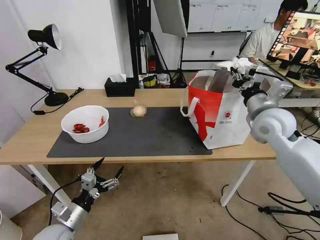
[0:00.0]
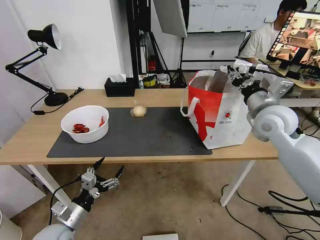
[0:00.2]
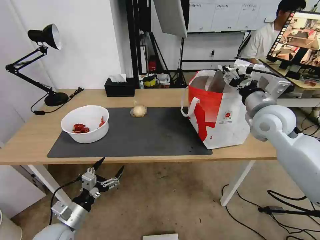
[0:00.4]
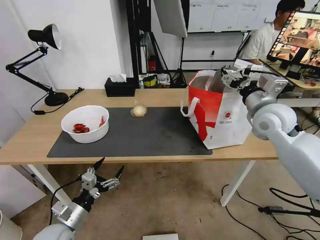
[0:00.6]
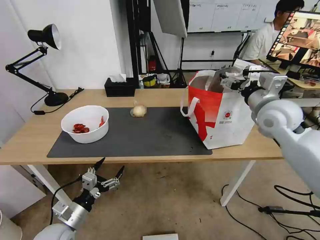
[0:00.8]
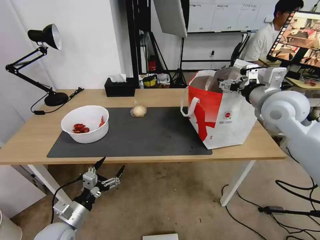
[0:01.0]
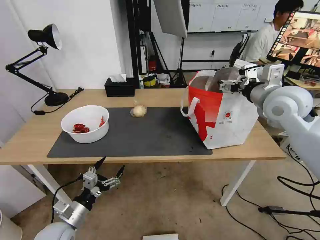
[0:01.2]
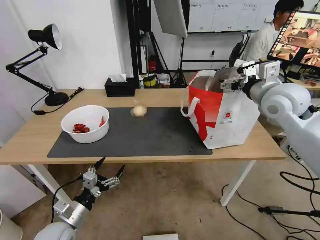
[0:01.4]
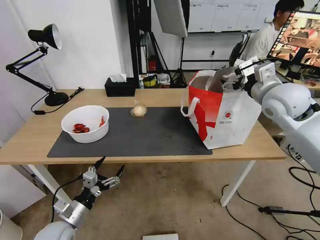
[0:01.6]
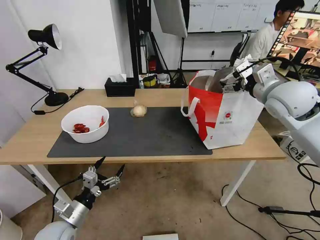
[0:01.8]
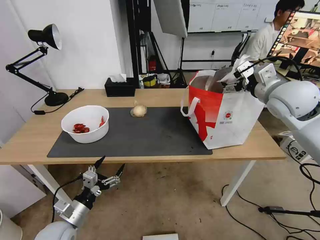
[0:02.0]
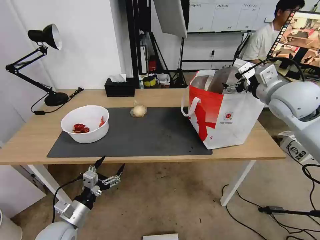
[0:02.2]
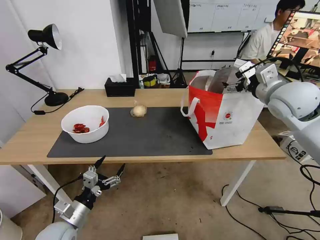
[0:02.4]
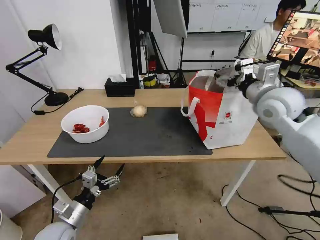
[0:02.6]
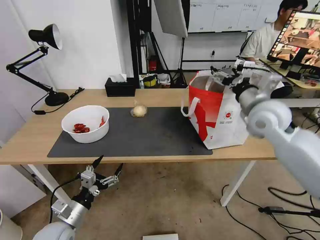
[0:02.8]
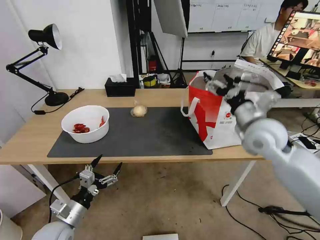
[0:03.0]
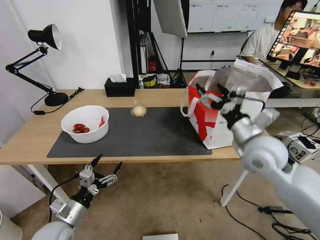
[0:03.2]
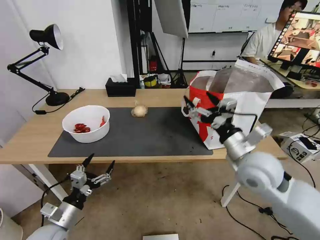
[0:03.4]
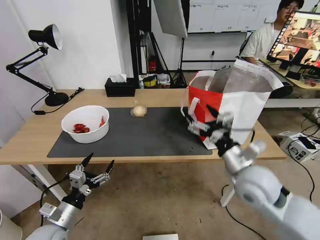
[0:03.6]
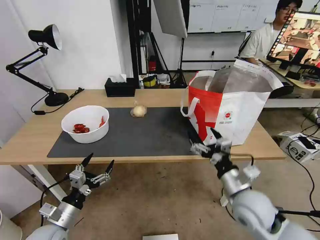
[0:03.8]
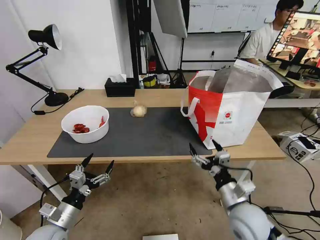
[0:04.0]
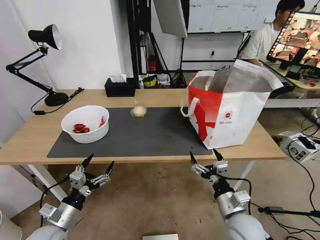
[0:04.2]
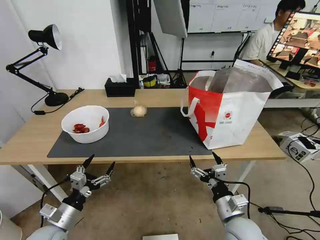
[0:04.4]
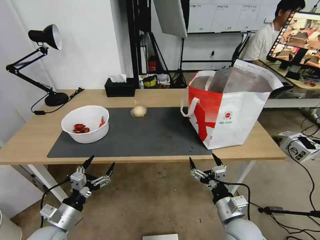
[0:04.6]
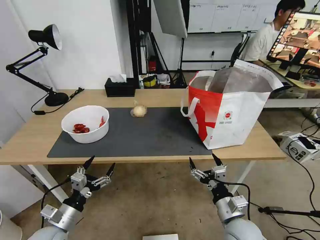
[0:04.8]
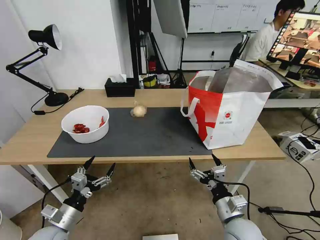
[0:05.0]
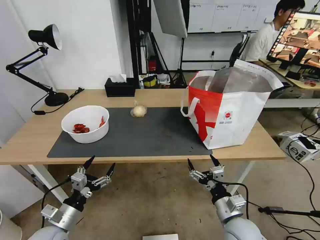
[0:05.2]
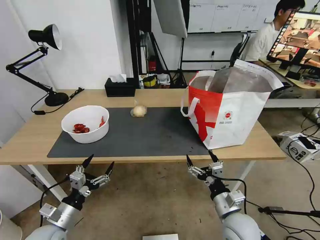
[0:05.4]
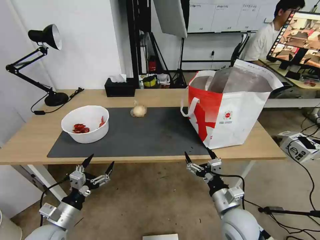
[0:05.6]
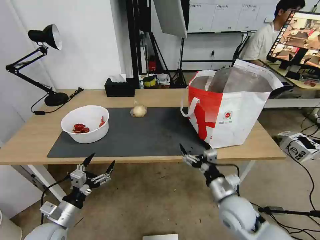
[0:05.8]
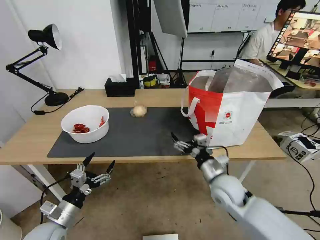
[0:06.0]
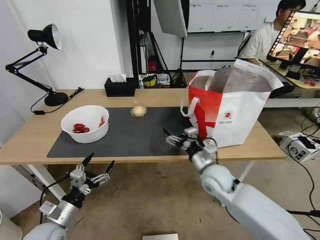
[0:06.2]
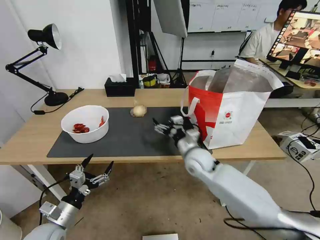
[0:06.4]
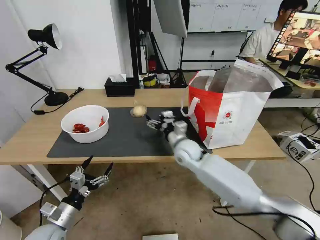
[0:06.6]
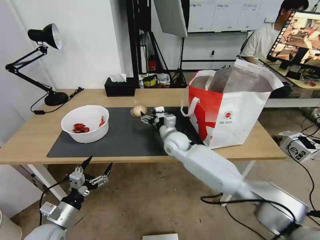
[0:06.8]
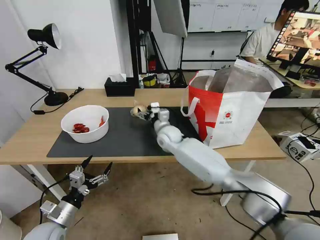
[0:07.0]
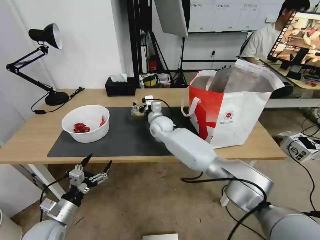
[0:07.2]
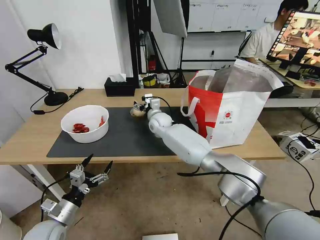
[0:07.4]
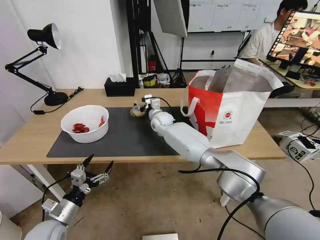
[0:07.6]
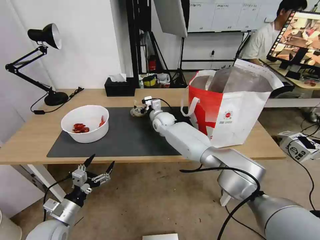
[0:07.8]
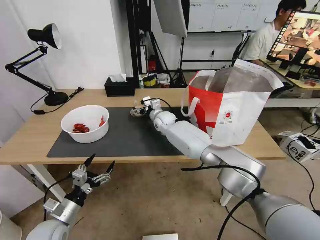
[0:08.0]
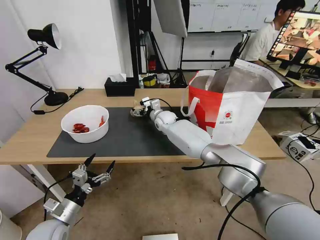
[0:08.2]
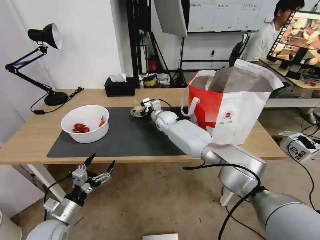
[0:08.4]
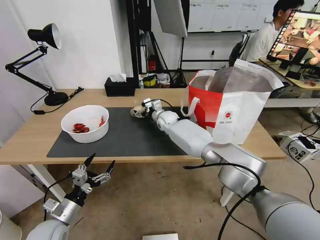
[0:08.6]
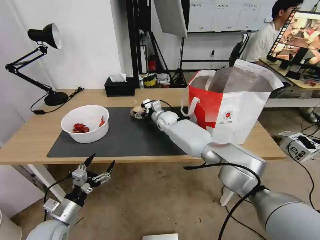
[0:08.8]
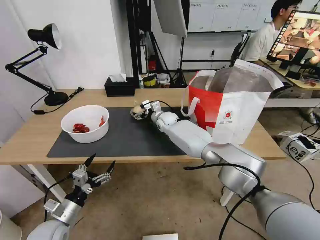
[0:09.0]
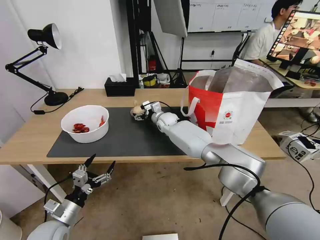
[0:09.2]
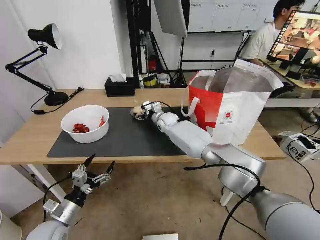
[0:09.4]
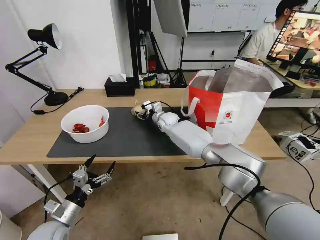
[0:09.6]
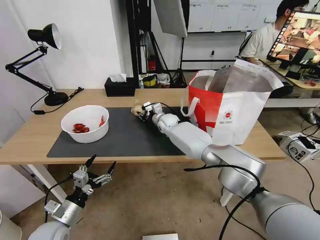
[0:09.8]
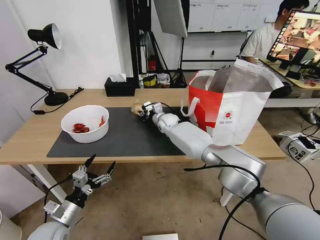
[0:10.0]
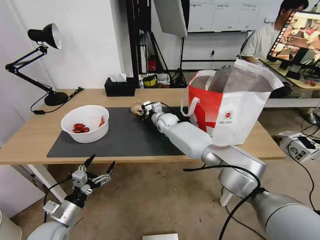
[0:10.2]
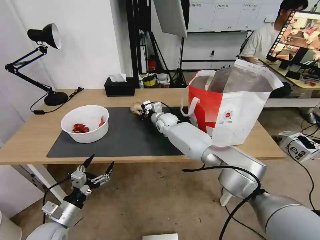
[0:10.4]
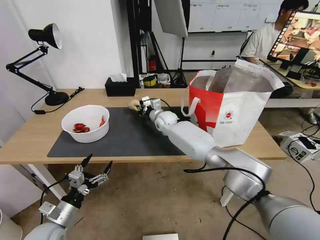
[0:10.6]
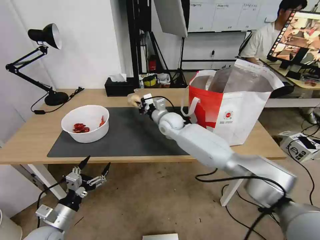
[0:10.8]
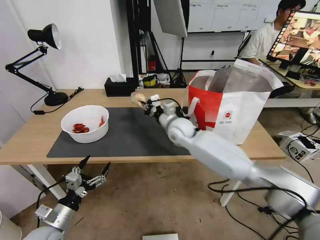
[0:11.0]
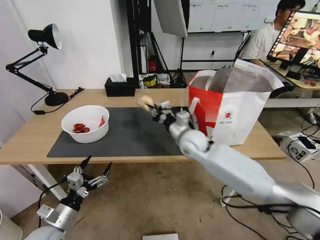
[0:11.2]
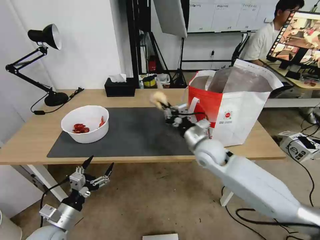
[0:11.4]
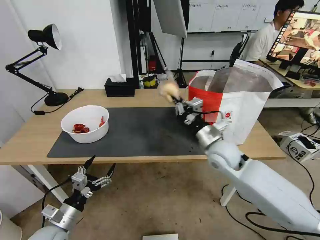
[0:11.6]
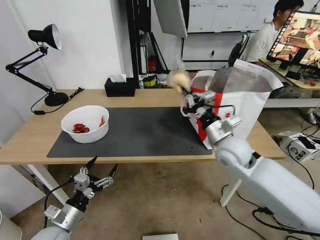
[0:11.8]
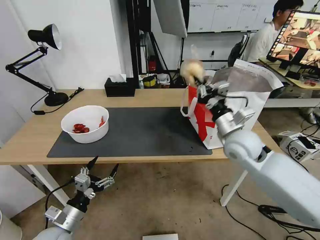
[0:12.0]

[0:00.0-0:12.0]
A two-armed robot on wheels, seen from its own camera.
Task of the whole recording: Pick up the trash from the table and place it into the takeout bag.
0:00.0 to 0:01.6: The right gripper shifts roughly 5 cm upward, and opens.
0:01.6 to 0:03.0: The right gripper shifts approximately 10 cm downward and backward.
0:03.0 to 0:04.4: The right gripper shifts about 30 cm downward and backward.
0:04.4 to 0:06.0: The right gripper travels forward by roughly 10 cm.
0:06.0 to 0:07.6: The right gripper is displaced forward and to the left by roughly 35 cm.
0:07.6 to 0:09.0: The grippers stay close to where they were, moving slightly.
0:09.0 to 0:10.4: The right gripper closes its fingers.
0:10.4 to 0:12.0: The right gripper is displaced backward, to the right and upward by approximately 35 cm.

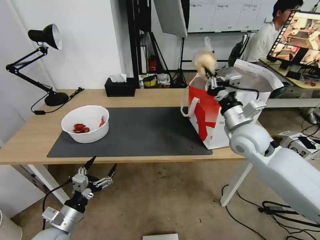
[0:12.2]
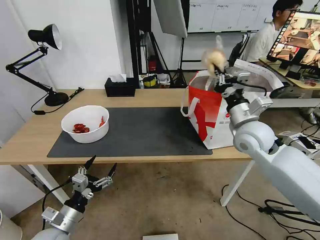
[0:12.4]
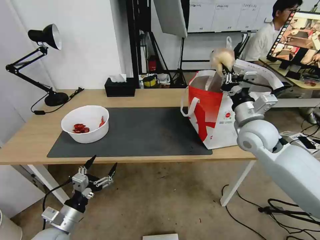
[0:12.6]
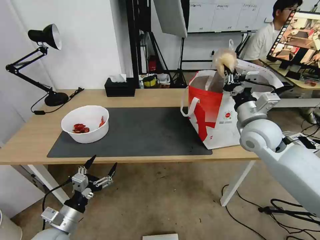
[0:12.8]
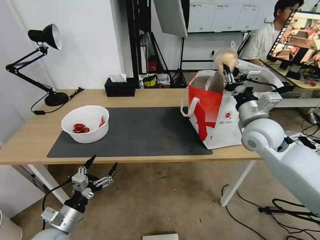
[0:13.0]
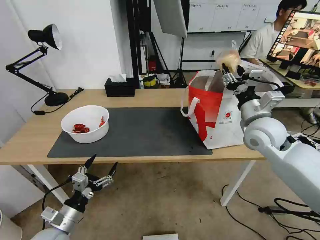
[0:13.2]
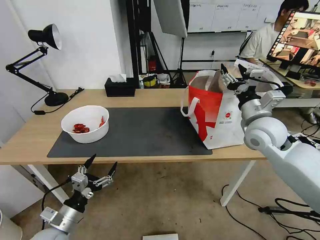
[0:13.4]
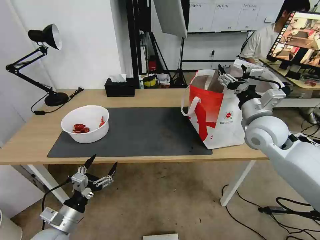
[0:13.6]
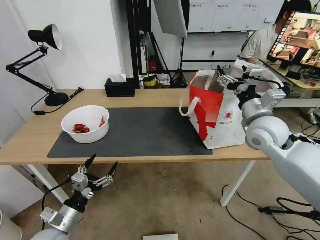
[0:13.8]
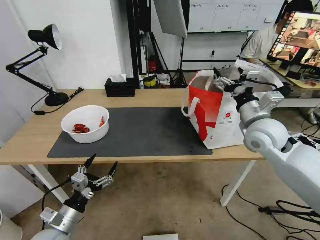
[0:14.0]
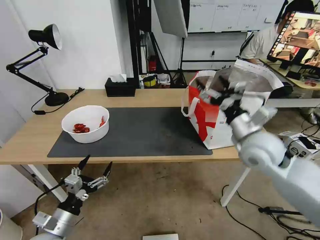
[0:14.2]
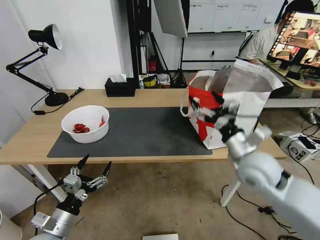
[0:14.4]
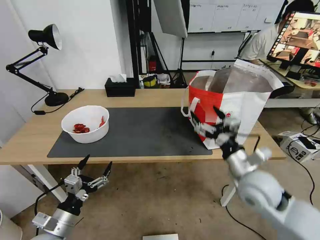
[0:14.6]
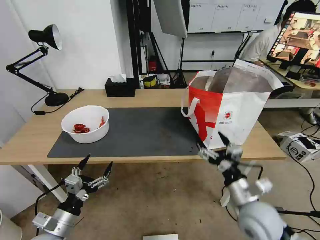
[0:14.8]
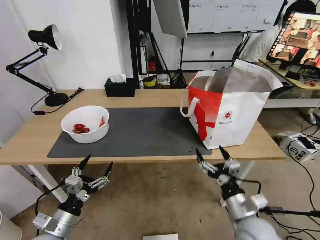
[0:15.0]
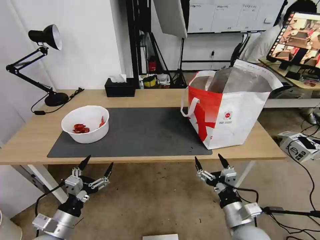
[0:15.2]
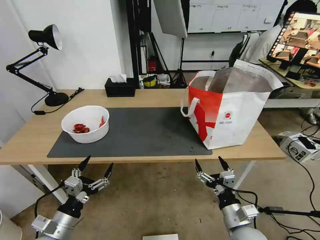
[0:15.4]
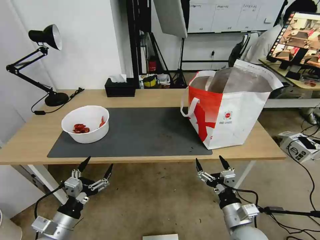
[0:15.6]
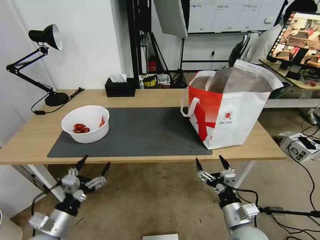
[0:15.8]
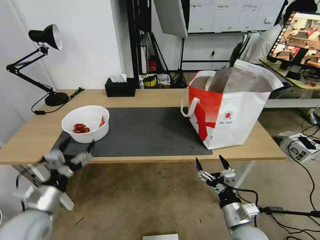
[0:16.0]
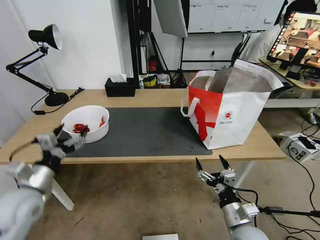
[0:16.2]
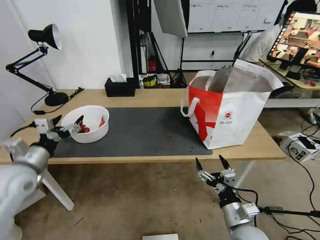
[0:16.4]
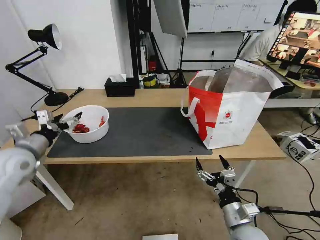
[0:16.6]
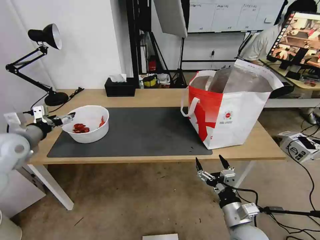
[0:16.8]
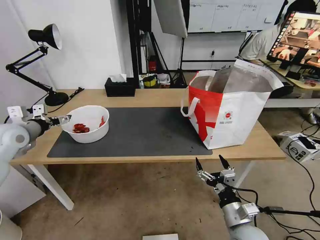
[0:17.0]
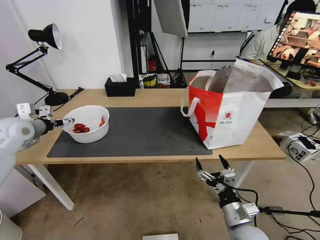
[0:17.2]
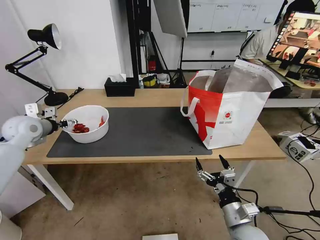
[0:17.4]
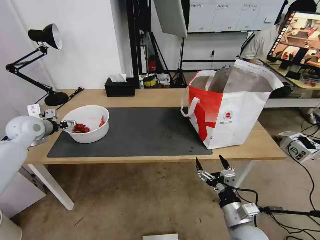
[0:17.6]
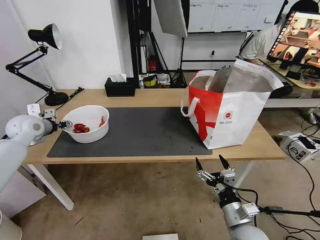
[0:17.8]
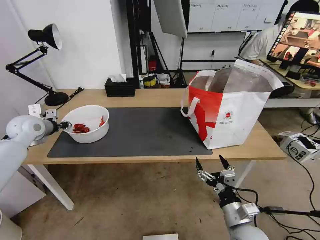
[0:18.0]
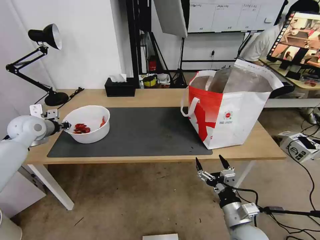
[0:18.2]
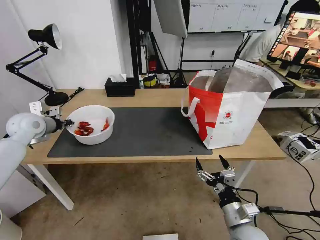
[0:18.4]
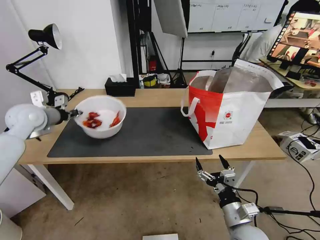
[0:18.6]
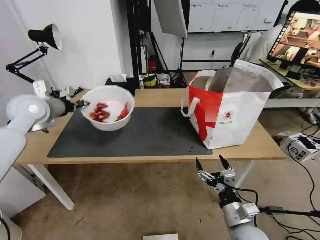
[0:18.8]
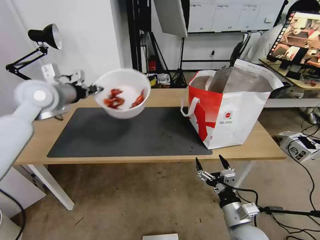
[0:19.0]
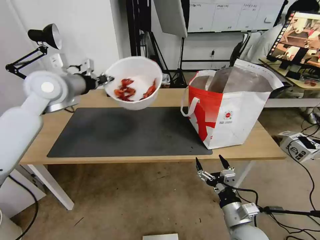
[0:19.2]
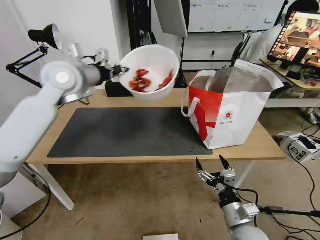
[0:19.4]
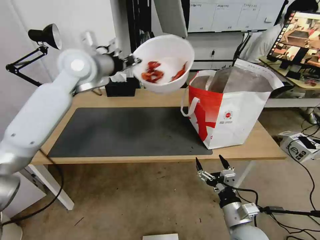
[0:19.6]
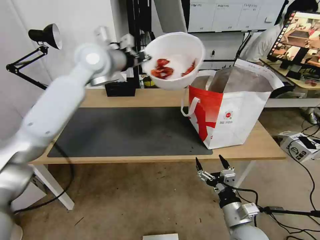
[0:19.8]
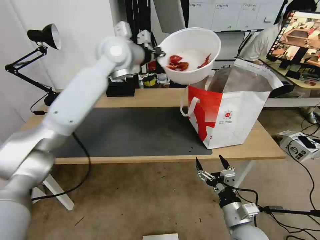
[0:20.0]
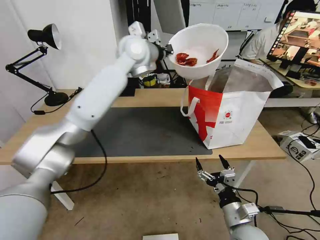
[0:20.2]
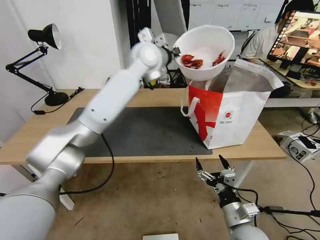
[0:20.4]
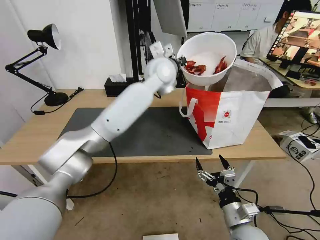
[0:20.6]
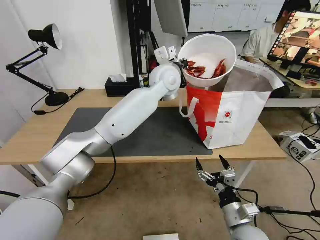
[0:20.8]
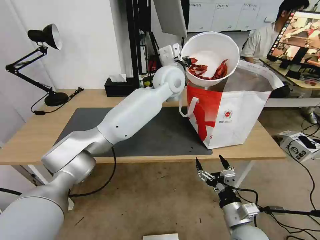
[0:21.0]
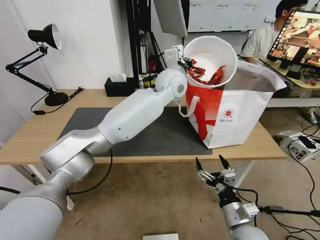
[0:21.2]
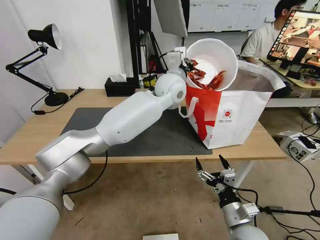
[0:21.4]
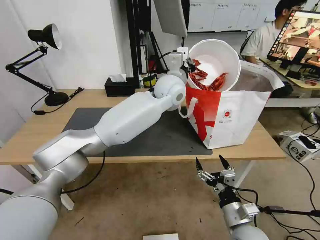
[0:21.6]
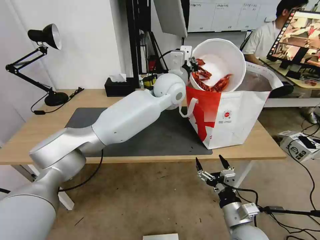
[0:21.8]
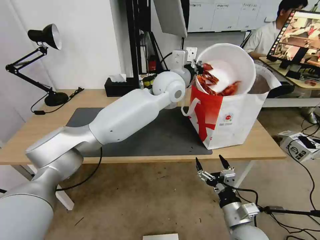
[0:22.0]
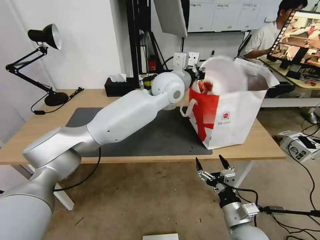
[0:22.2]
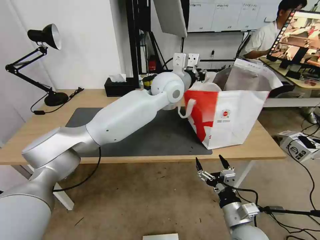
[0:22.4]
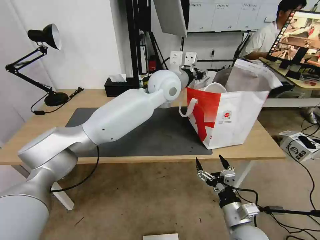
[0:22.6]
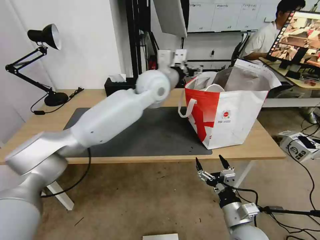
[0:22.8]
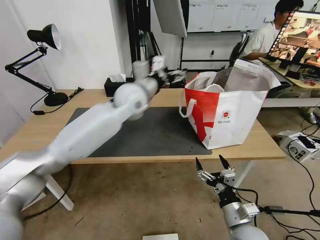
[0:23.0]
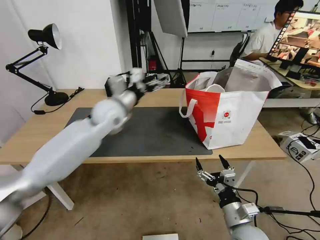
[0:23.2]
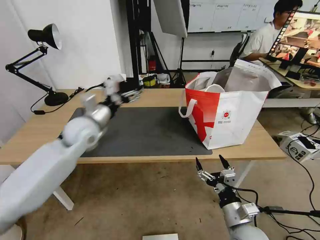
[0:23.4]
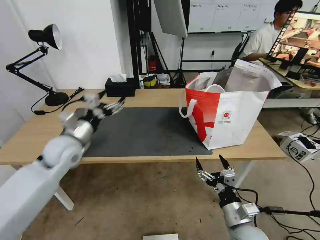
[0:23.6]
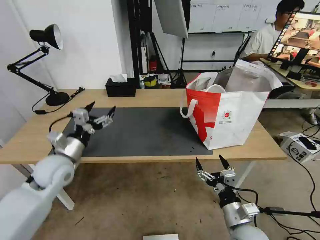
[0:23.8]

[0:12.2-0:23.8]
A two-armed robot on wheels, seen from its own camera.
Task of the whole recording: Pick up the trash from the table and place it into the takeout bag.
0:12.2 to 0:13.6: The right gripper opens up.
0:13.6 to 0:15.0: The right gripper moves backward and downward, about 30 cm.
0:15.0 to 0:16.6: The left gripper is displaced forward, upward and to the left by roughly 25 cm.
0:16.6 to 0:18.0: The left gripper heads forward, covering about 10 cm, and closes its fingers.
0:18.0 to 0:19.4: The left gripper shifts some 25 cm to the right and upward.
0:19.4 to 0:21.0: The left gripper moves to the right, roughly 30 cm.
0:22.4 to 0:23.8: The left gripper moves to the left, downward and backward, about 40 cm, and opens its fingers.
